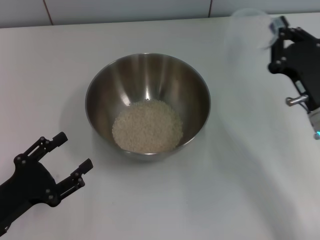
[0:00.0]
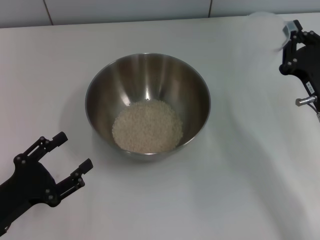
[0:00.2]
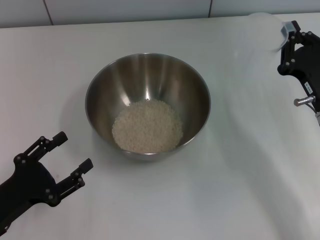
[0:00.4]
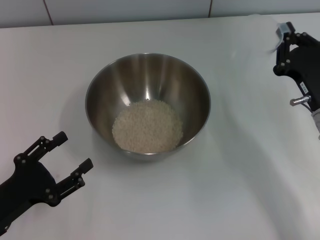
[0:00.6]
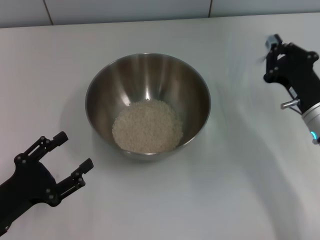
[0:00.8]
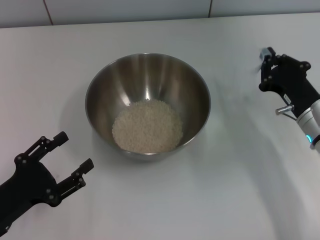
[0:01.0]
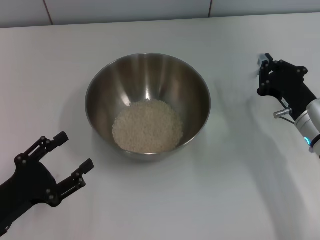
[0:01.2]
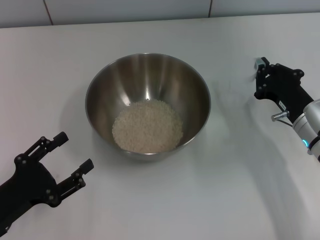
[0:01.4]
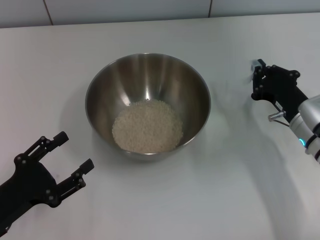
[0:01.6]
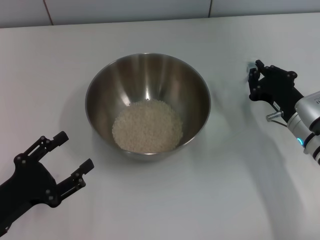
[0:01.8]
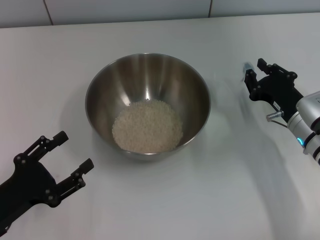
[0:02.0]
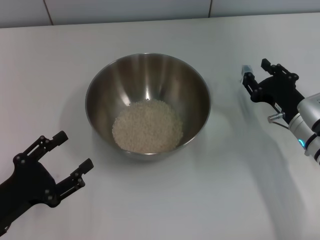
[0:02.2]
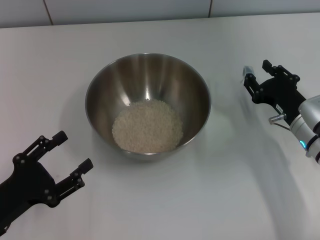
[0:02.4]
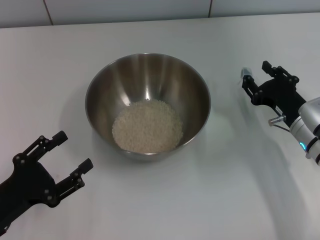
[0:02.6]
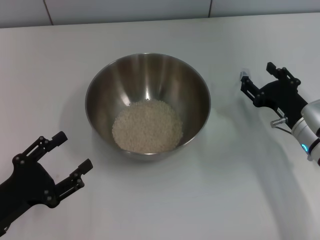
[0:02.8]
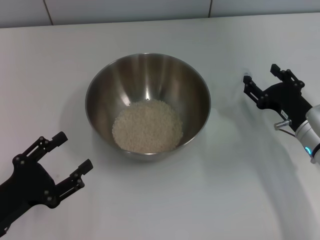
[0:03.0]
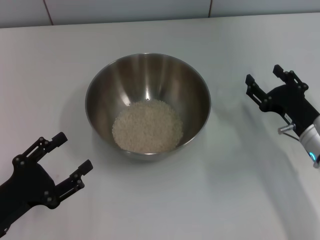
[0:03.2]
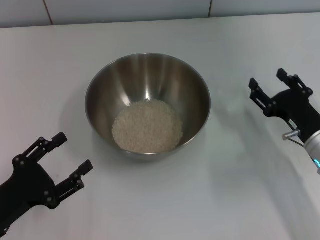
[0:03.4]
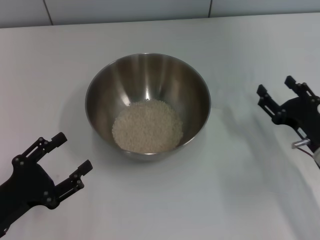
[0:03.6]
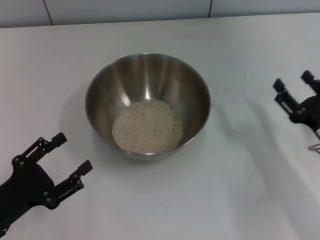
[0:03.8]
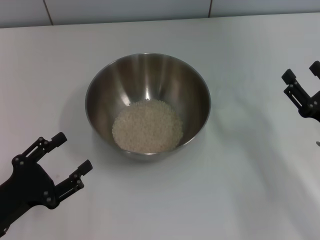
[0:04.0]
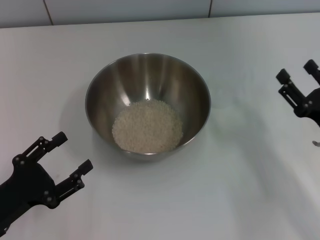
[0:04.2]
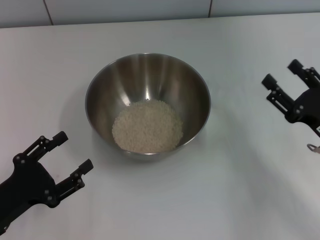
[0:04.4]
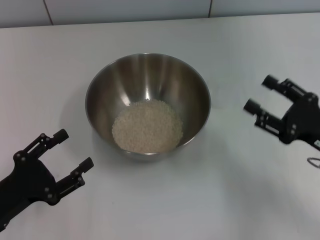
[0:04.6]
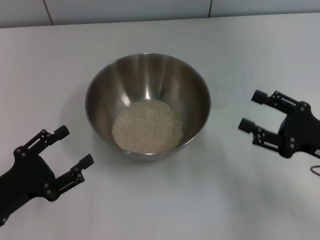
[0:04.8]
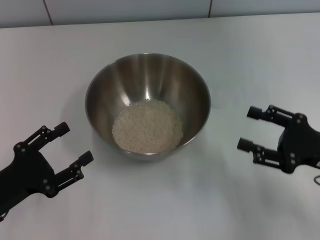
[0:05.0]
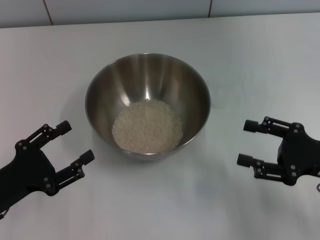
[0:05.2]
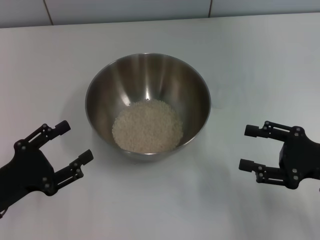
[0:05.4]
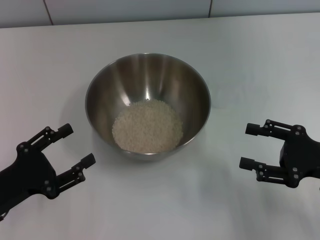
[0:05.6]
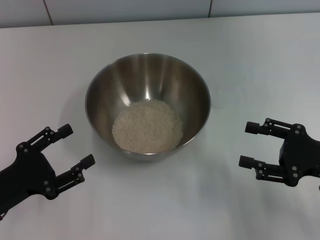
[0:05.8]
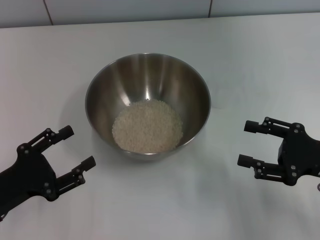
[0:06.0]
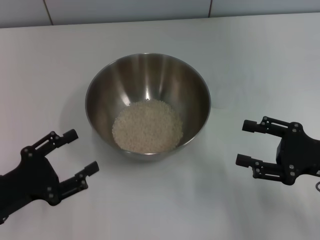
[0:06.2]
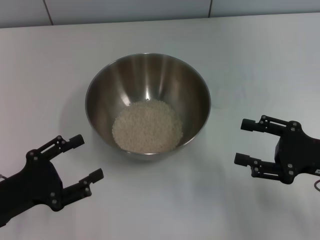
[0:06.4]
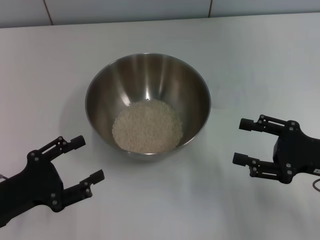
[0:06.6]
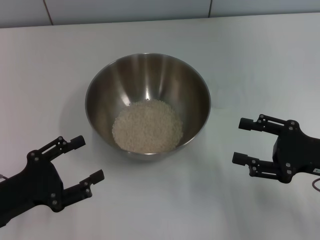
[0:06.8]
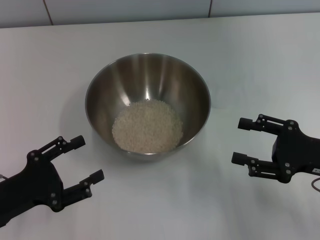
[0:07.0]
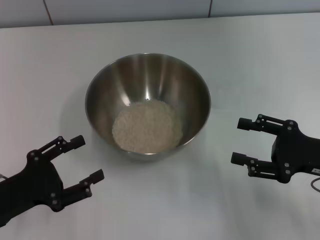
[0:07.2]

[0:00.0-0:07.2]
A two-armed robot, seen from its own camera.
Task of the whole recording: Place the bowl in the middle of the table with one hand and pour the rice from the grain cup into it with the other hand.
Step, 0.0 to 3.4 s: Place the cup on the table with the right gripper.
1.4 to 2.8 s: The right gripper opens.
2.8 to 4.4 s: The right gripper heads backward, covering roughly 5 cm.
5.8 to 7.2 s: There are only small adjustments of the grippers.

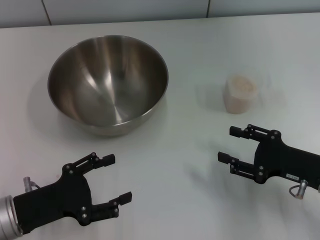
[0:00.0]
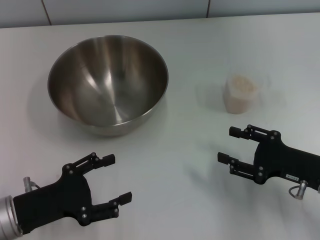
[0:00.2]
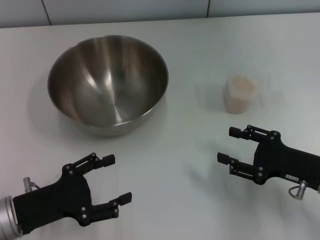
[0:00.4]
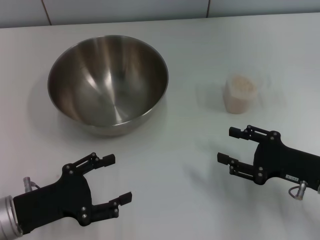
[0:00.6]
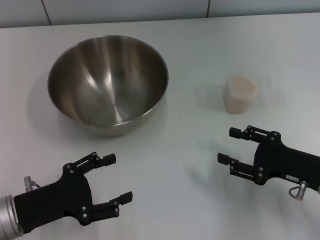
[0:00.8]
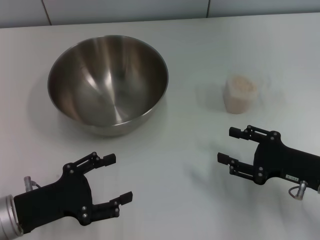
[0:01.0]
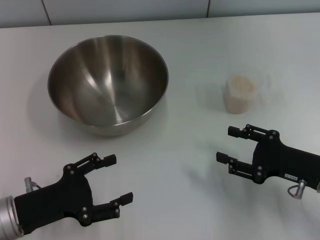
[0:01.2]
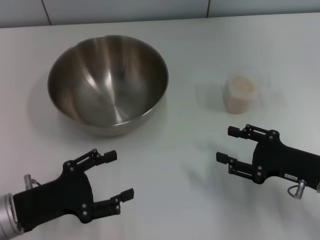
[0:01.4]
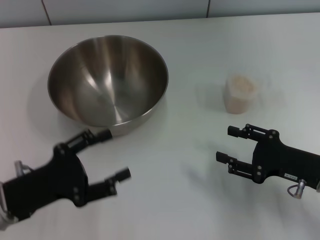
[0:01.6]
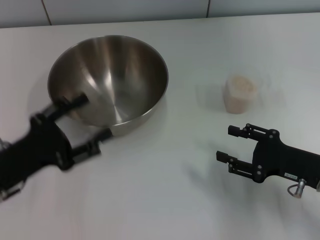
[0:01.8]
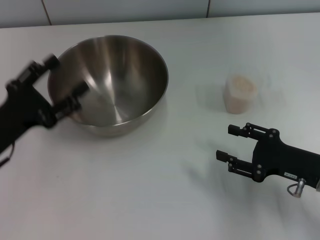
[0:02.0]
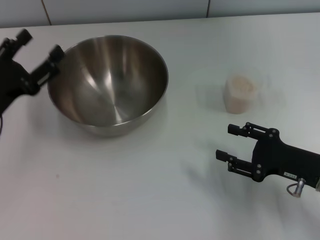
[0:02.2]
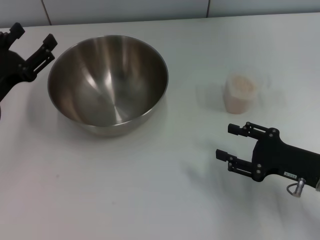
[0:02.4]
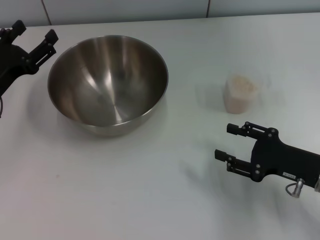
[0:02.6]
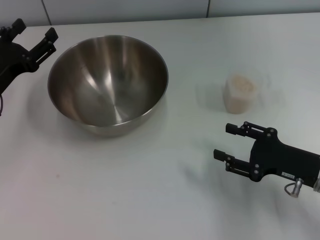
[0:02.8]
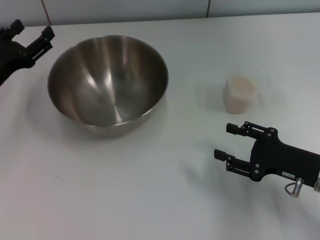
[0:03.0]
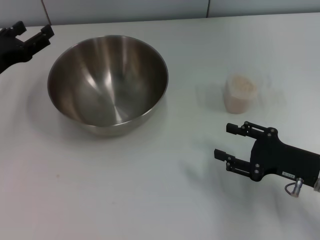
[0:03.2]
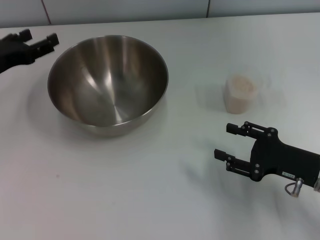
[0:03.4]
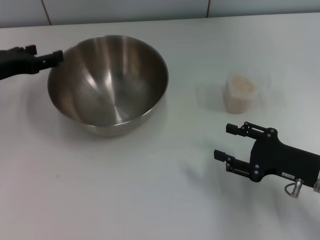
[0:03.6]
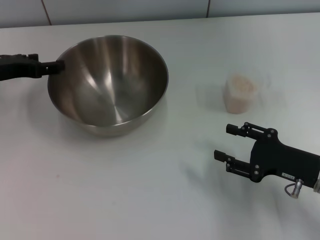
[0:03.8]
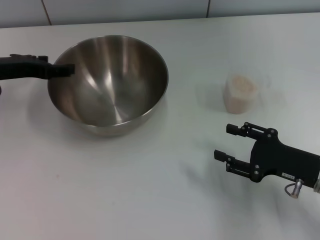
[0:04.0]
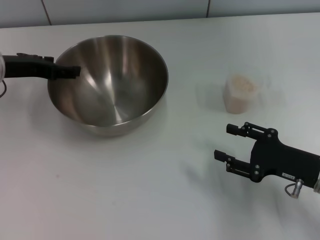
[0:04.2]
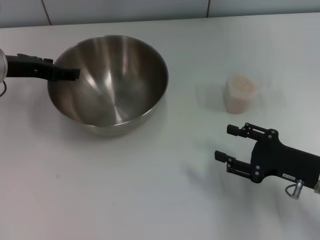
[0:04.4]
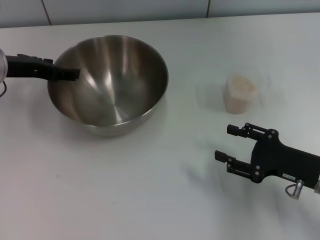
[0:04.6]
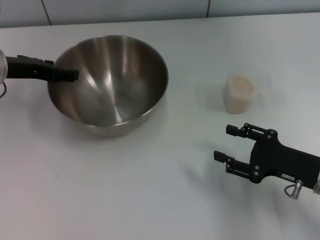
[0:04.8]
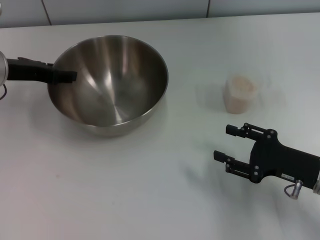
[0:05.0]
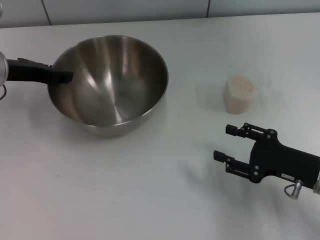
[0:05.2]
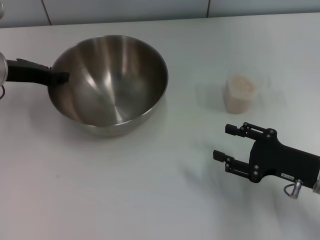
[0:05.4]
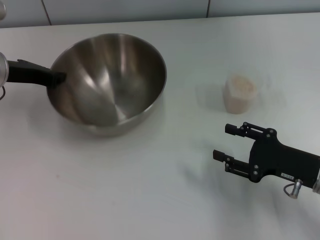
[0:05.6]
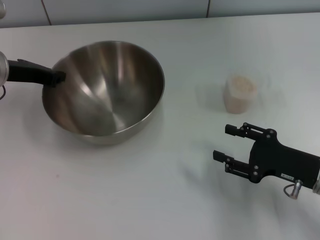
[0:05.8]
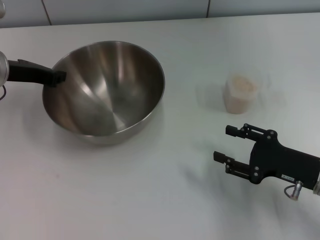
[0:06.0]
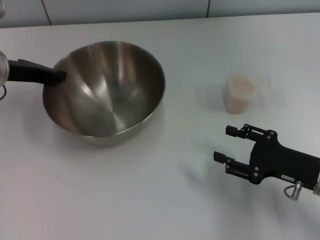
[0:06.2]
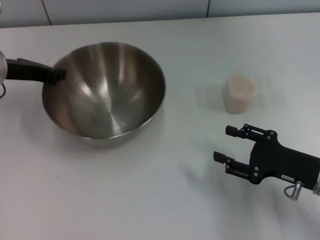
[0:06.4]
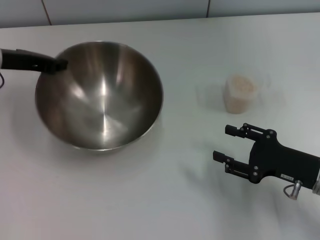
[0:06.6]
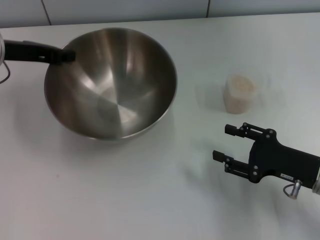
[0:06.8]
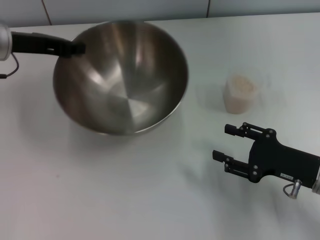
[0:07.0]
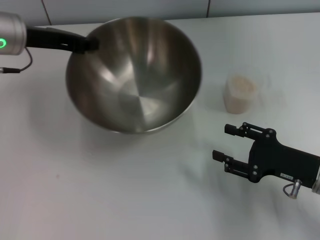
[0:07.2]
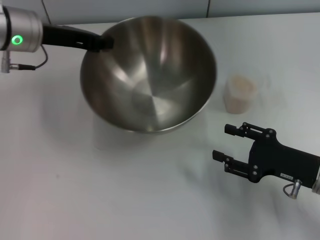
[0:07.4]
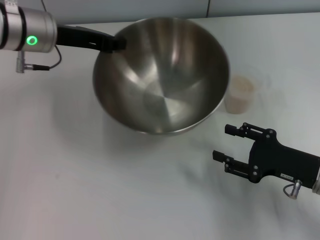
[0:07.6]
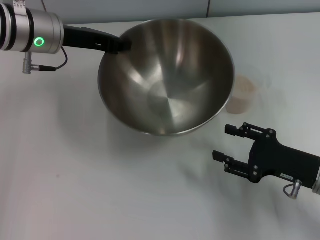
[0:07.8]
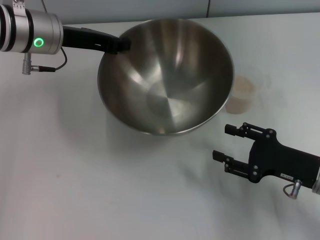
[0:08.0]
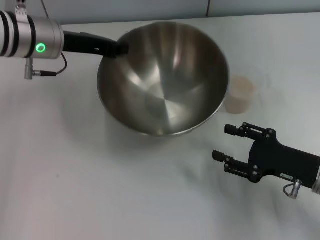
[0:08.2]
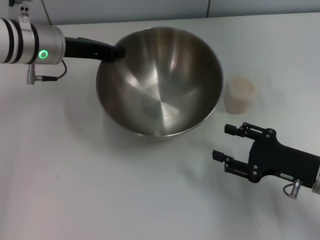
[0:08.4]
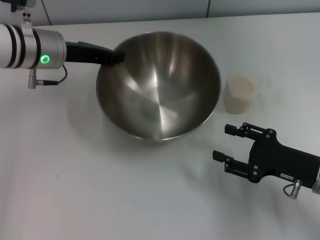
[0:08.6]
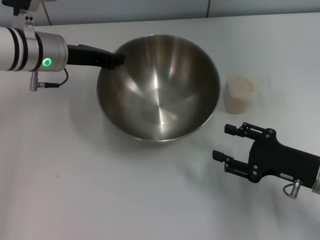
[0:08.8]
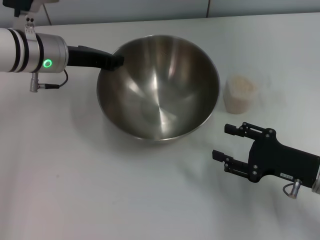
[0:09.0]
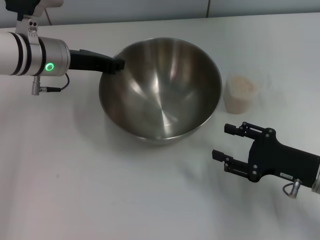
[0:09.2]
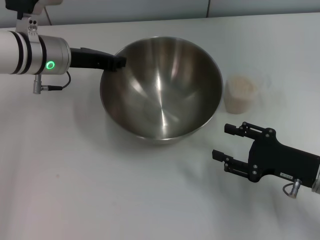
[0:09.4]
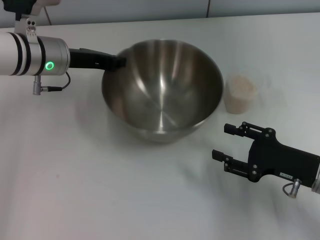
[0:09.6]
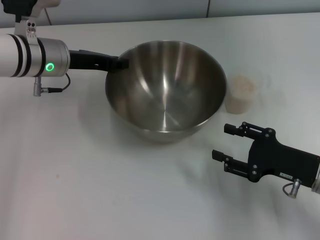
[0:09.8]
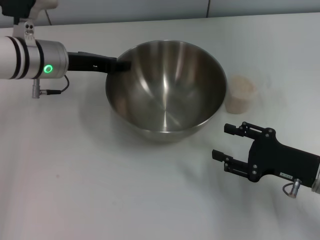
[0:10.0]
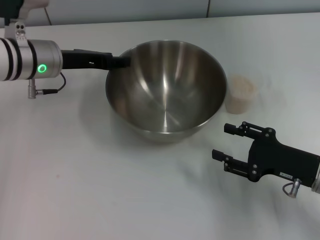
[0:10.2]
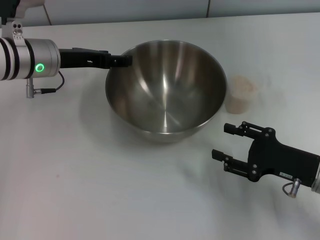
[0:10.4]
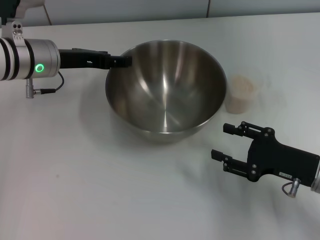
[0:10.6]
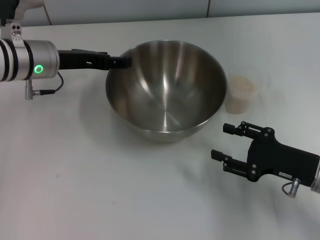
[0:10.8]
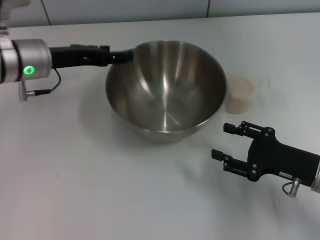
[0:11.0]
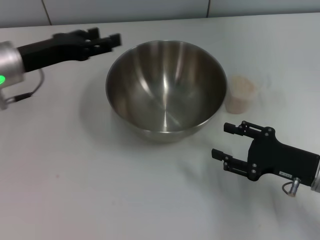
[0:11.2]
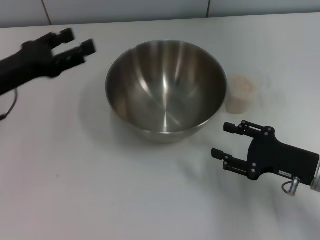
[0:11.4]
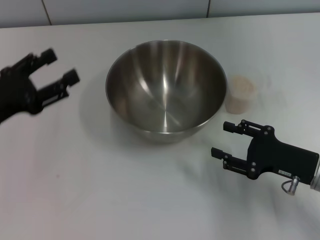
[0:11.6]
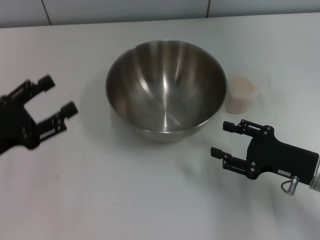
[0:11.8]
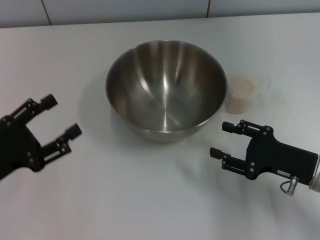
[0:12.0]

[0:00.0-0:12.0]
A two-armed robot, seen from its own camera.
Task of the whole recording: Place the bowl in the middle of the table with one hand and pour the rice from the grain cup into it with the other hand.
Step, 0.0 to 6.8 s: Pick up the bowl with the left gripper.
Step, 7.2 to 11.0 s: Place the bowl in the center of view with the left gripper.
0.0 to 1.6 s: The grippers stay close to where they were, moving slightly.
1.6 to 3.0 s: The left gripper moves forward, approximately 15 cm.
3.0 to 4.4 s: The left gripper goes some 10 cm forward and upward.
4.4 to 6.0 s: The left gripper closes.
6.0 to 7.6 s: The left gripper moves to the right, approximately 5 cm.
7.6 to 9.0 s: There are only small adjustments of the grippers.
9.0 to 10.4 s: The left gripper opens up.
10.4 to 12.0 s: The left gripper moves backward and to the left, some 20 cm.

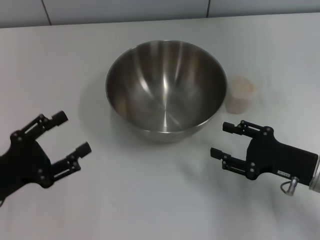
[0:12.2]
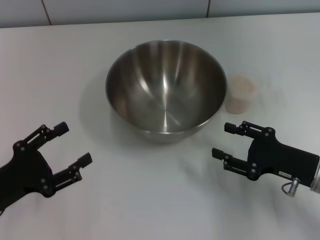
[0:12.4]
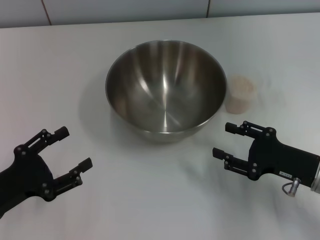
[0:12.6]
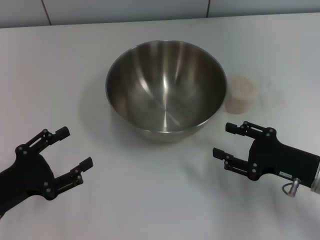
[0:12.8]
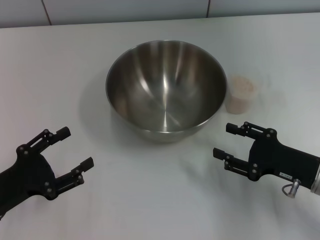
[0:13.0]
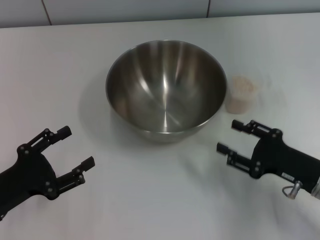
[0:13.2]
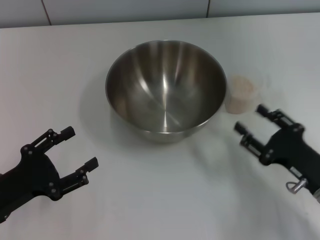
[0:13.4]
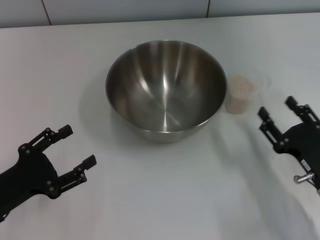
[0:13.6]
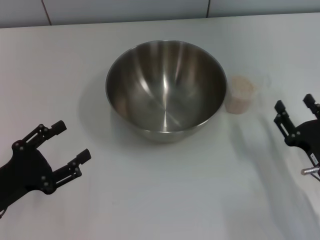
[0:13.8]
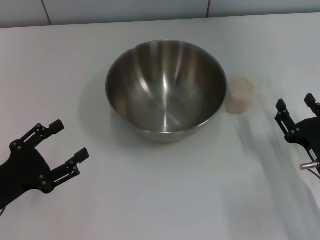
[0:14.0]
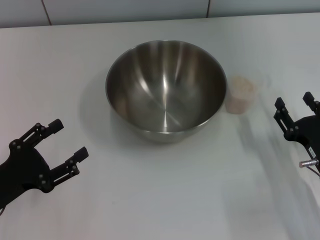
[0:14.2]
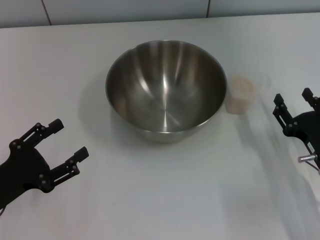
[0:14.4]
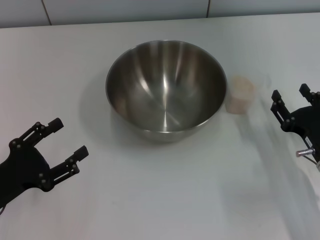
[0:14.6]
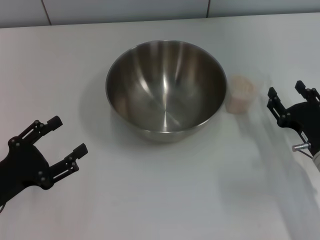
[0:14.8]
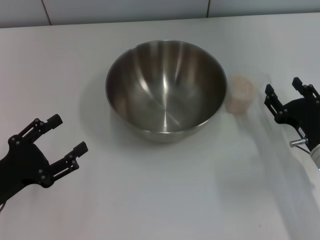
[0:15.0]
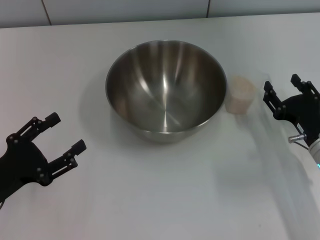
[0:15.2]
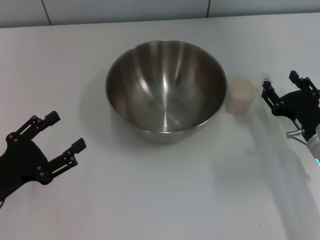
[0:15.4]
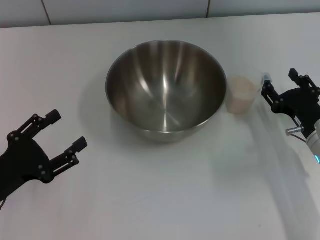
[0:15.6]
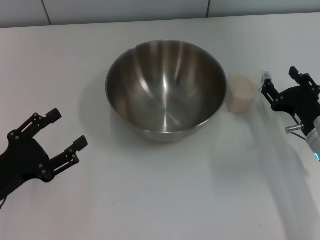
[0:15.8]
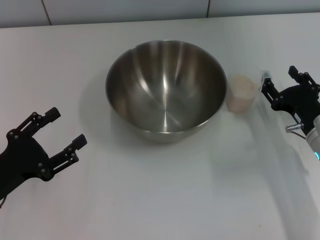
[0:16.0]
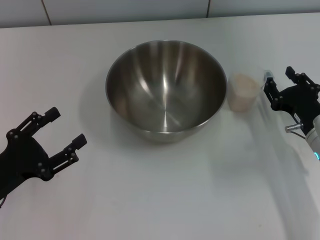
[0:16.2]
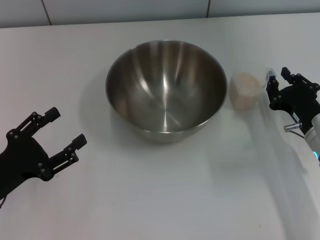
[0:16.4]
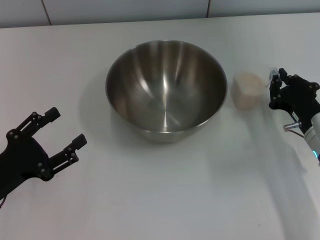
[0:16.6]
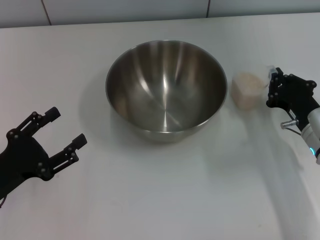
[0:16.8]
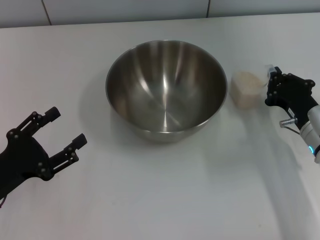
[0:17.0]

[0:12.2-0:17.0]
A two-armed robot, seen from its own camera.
Task of the whole recording: Place the bowl in the middle of the table with one hand and pour the rice from the grain cup into it with the other hand.
13.8 to 15.4 s: The right gripper travels forward by about 5 cm.
15.4 to 17.0 s: The right gripper closes its fingers.
